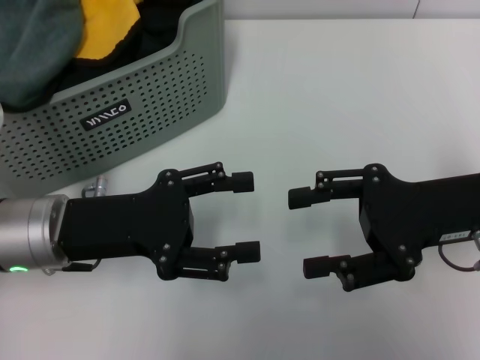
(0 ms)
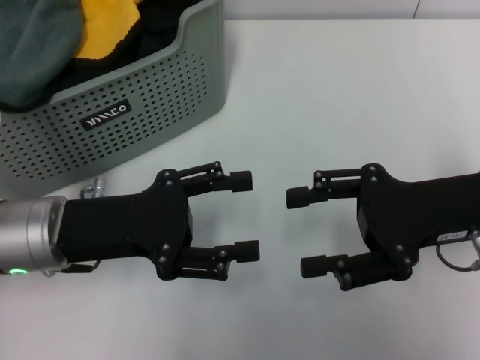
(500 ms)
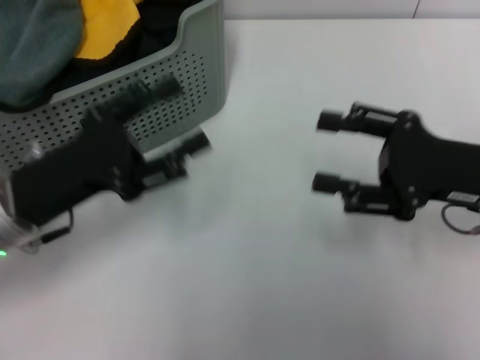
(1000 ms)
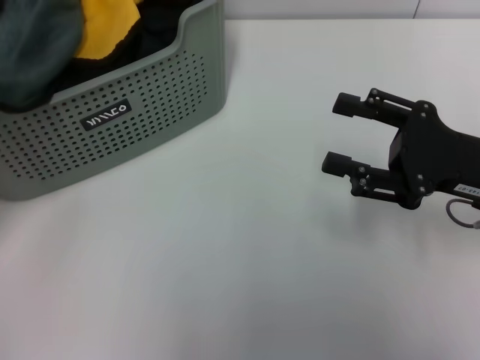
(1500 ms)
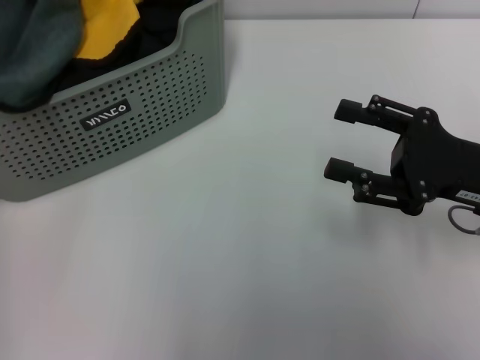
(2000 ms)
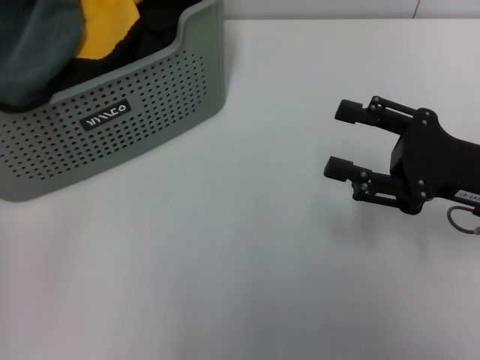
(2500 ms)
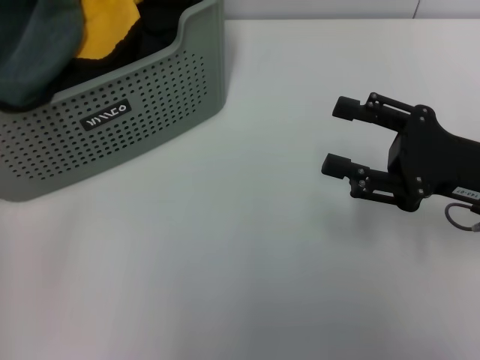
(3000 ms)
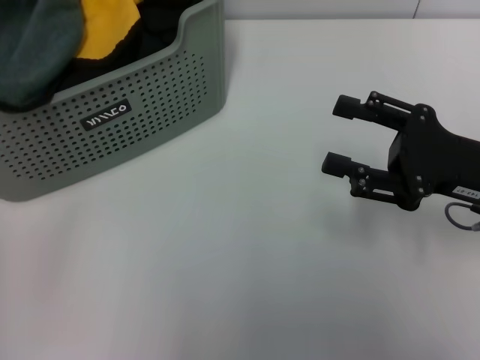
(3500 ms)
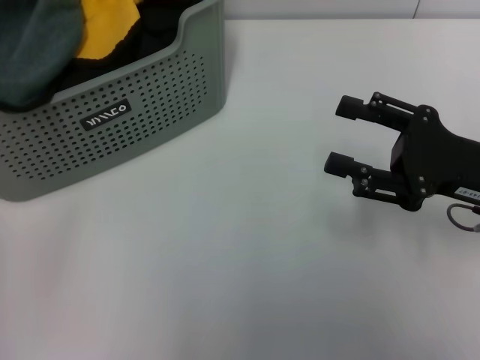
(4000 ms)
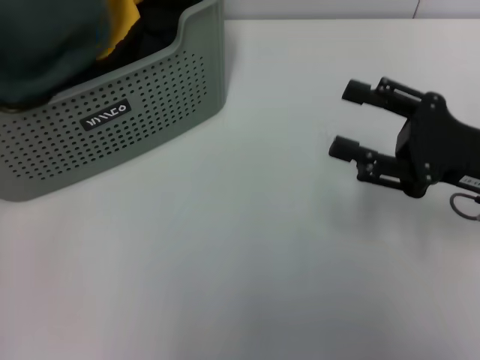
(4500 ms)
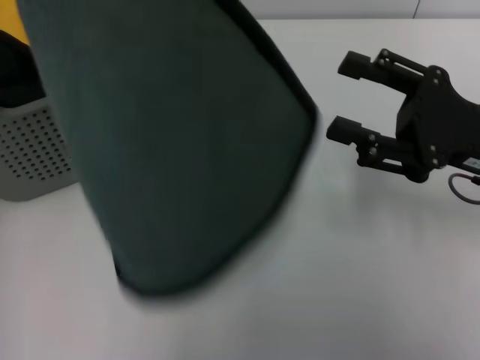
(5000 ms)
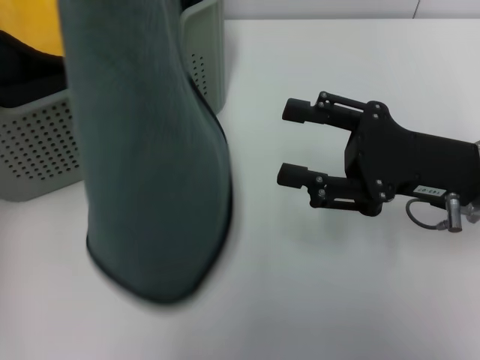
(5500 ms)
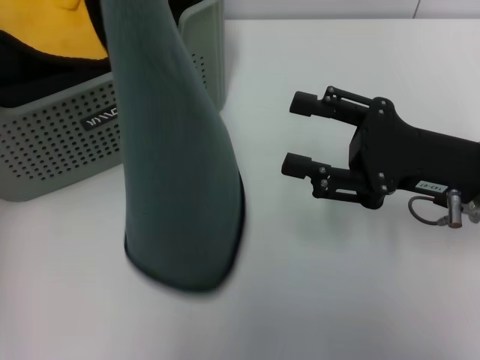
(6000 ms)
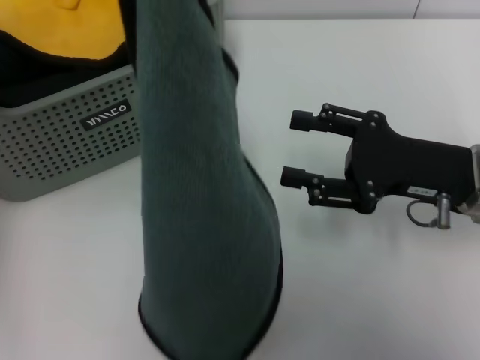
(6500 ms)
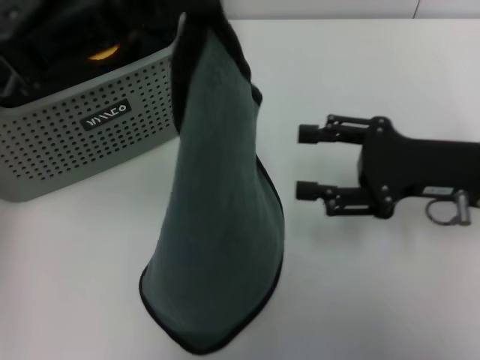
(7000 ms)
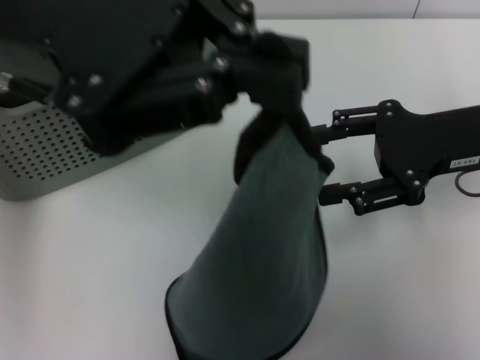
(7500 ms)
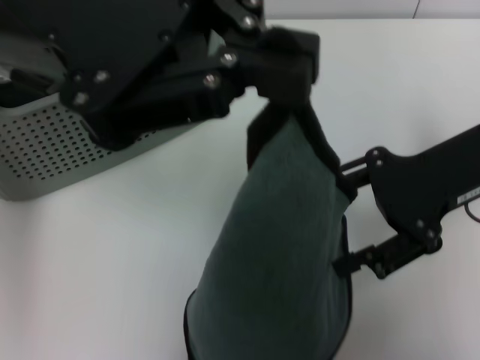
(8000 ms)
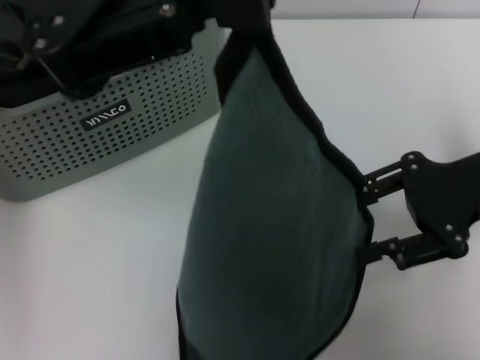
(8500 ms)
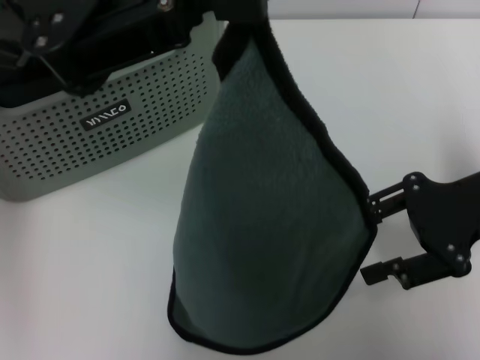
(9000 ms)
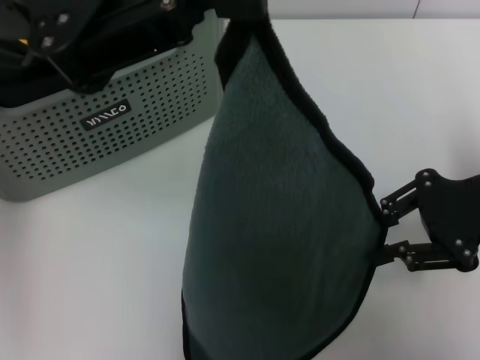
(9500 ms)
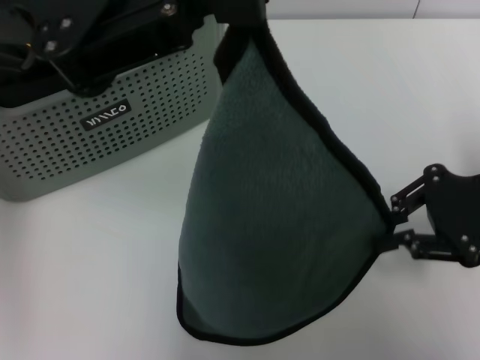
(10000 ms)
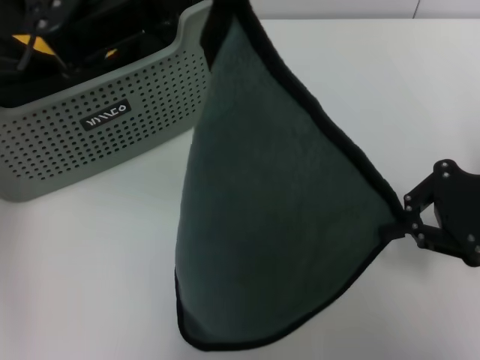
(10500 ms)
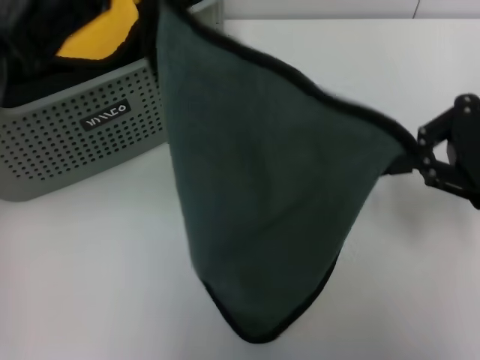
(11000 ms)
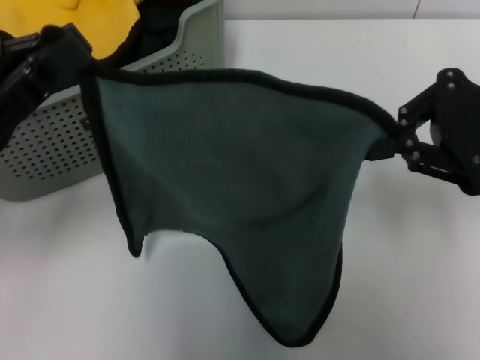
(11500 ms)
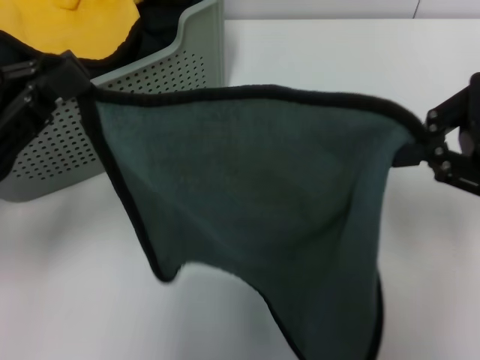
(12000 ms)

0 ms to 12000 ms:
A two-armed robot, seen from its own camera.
Task of the whole recording: pick up the towel from the storage box and lay it flat on the table.
Step, 0 ms to 3500 ms: Pick up a towel with the left gripper.
Step, 4000 ms to 10000 ms: Spread the towel flat with the left gripper.
0 ms to 2000 ms: The left gripper shifts some 15 cm forward, upward and to the left.
4000 ms to 6000 ms: The left gripper is displaced upward, to the right and backward by some 15 cm.
6000 ms to 8000 ms: The right gripper heads upward, covering about 5 cm. The left gripper shifts about 5 cm to the right.
8000 ms to 10000 ms: The right gripper shifts some 5 cm to the right, and closes.
10000 ms to 12000 ms: The left gripper heads downward, to the left and backward, covering approximately 15 cm. The right gripper heads upward, covering approximately 5 cm, and closes its fingers.

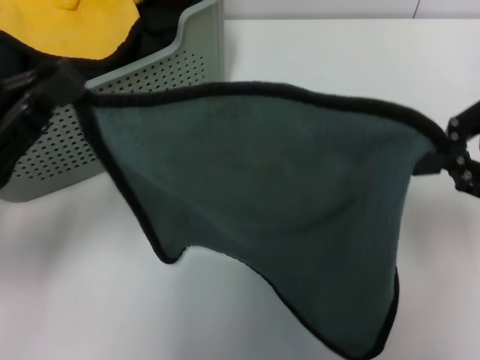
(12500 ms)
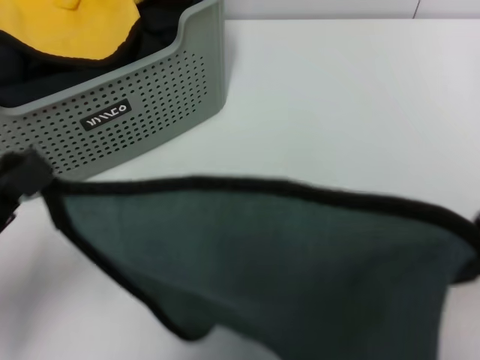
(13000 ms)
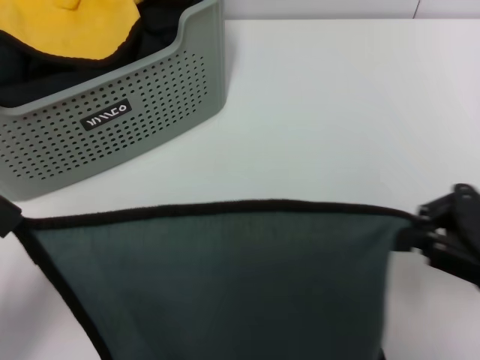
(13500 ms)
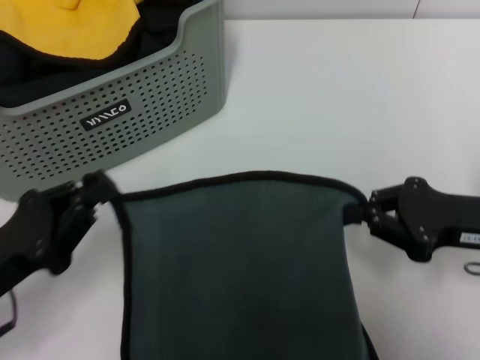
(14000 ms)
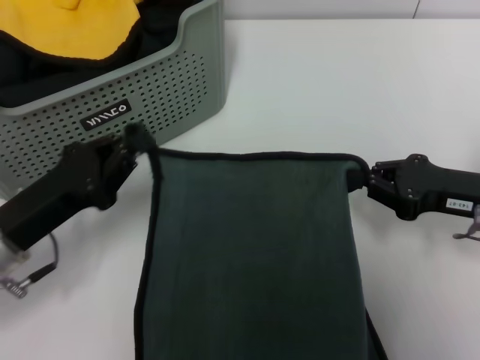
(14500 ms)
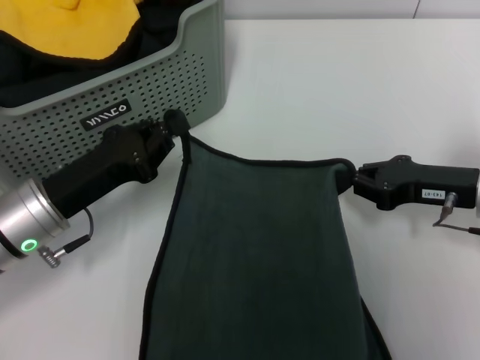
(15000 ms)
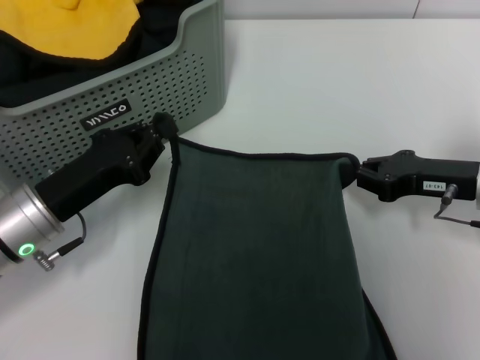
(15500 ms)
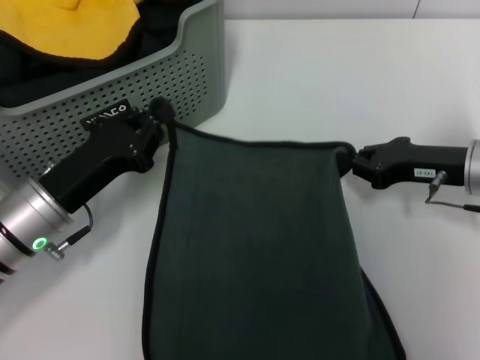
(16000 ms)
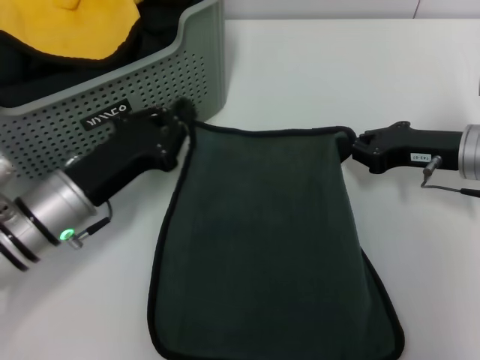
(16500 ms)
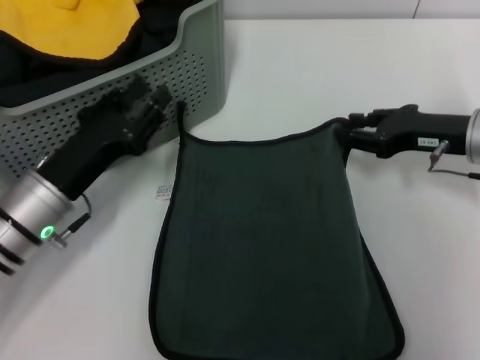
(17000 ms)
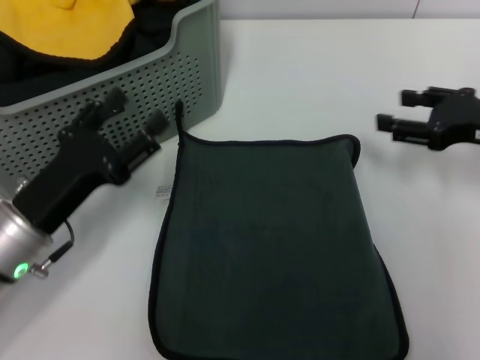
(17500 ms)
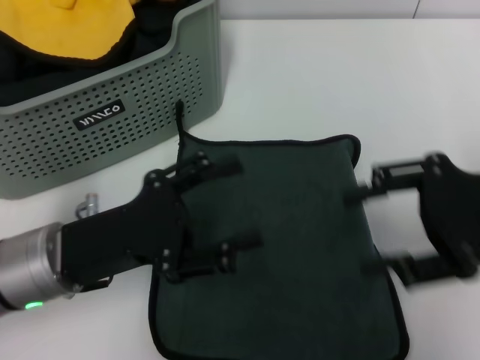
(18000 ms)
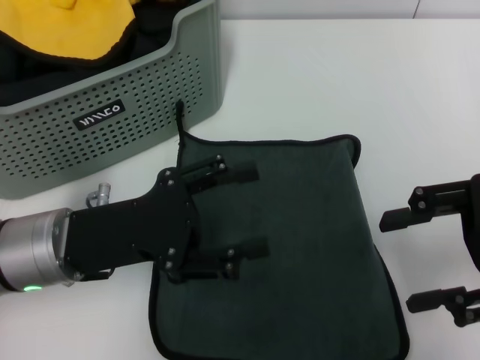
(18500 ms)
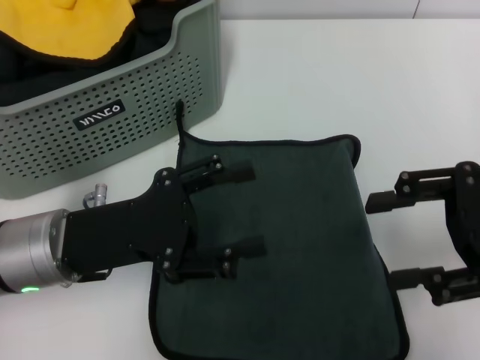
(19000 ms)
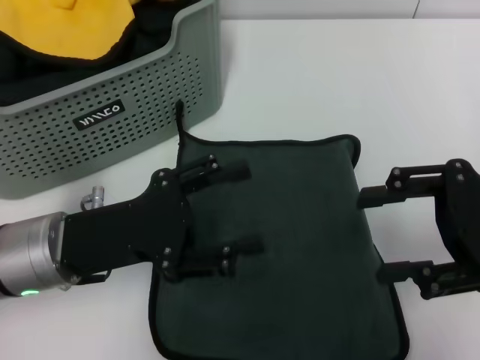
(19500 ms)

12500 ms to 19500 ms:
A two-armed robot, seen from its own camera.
Task of the whole recording: pick up the towel from the storage box and lay it flat on the table.
Step, 12500 ms to 17000 ms: Spread the towel flat with the right gripper.
12500 ms to 14500 ms: The left gripper shifts some 10 cm downward, and travels backward and back again, about 10 cm each way. The right gripper moves downward, roughly 15 cm.
14500 ms to 16000 ms: The grippers stay close to where they were, moving slightly.
16000 ms to 17500 ms: The left gripper opens. The right gripper heads upward, covering approximately 5 cm, and opens.
17500 ms to 19500 ms: The left gripper ends up roughly 5 cm from where it was; the right gripper heads backward, covering roughly 5 cm.

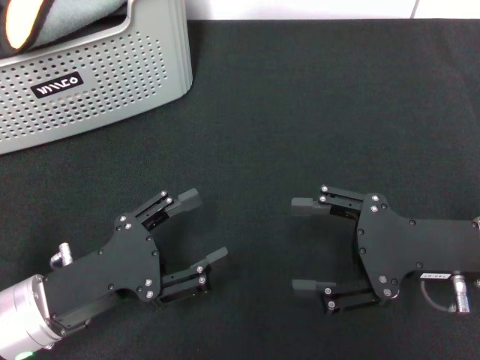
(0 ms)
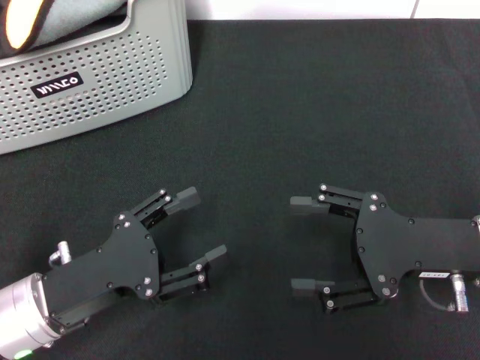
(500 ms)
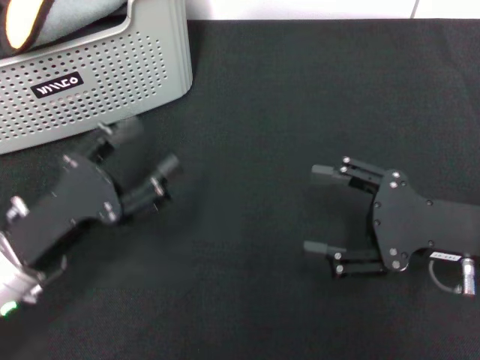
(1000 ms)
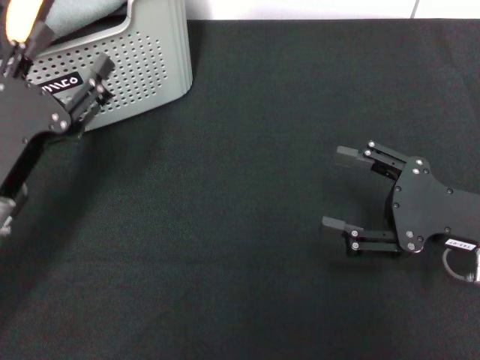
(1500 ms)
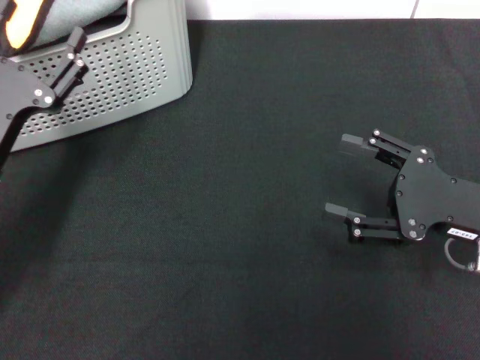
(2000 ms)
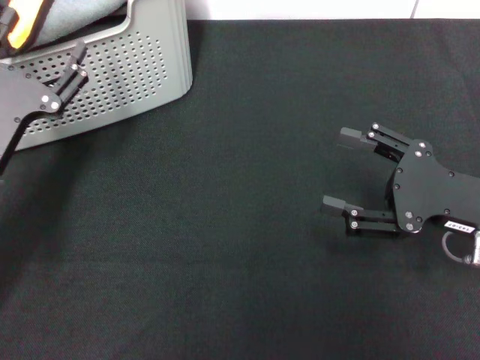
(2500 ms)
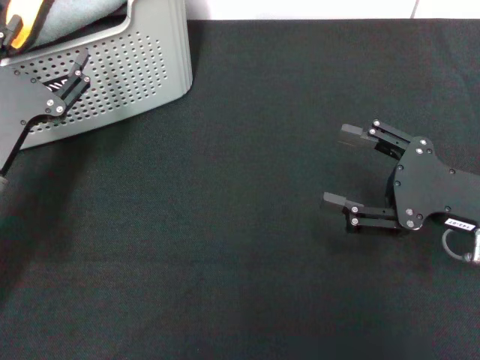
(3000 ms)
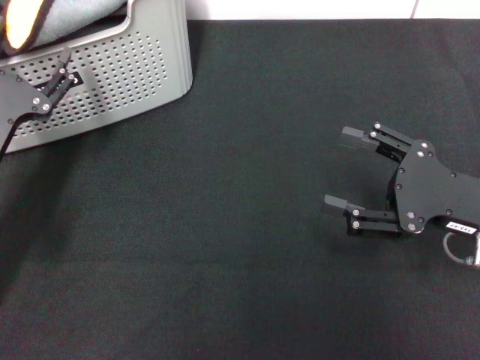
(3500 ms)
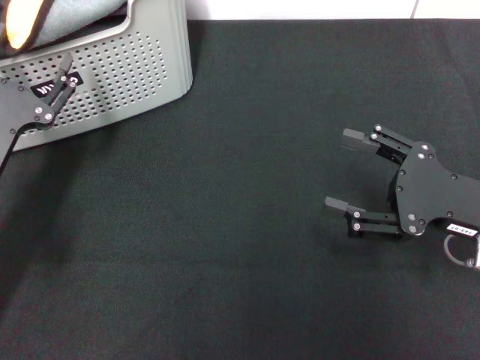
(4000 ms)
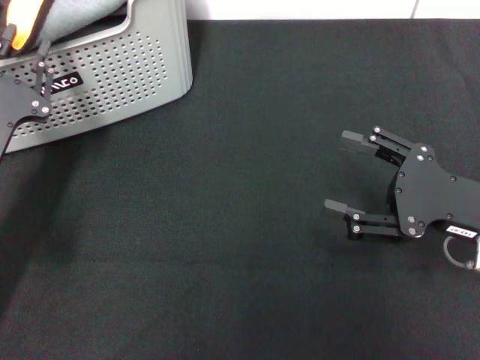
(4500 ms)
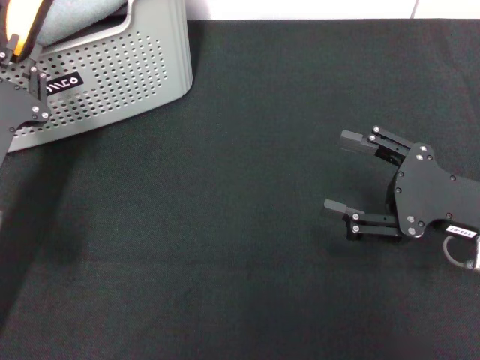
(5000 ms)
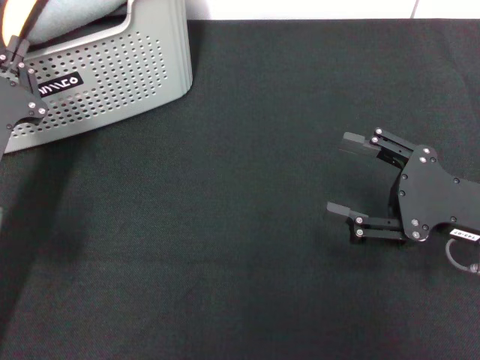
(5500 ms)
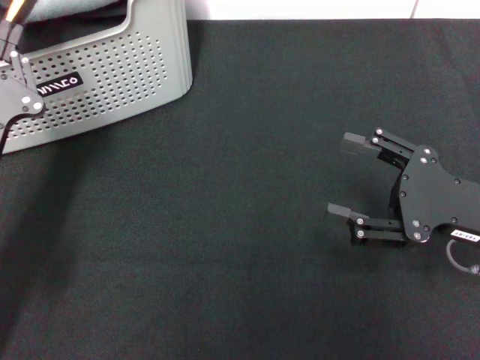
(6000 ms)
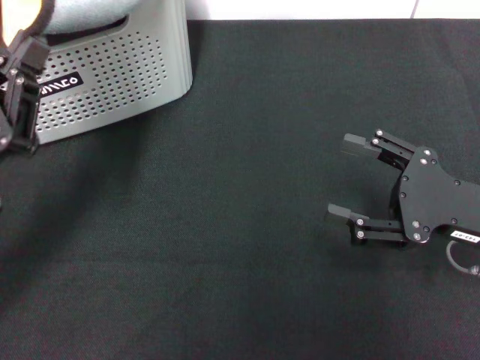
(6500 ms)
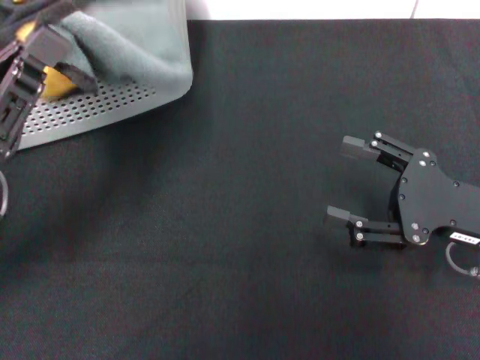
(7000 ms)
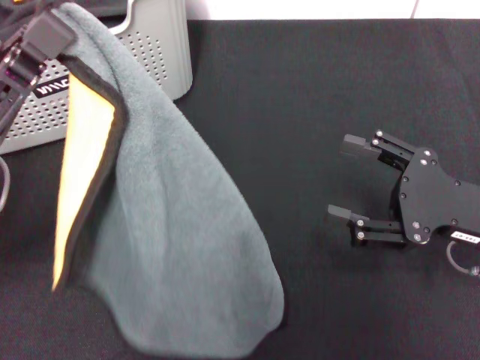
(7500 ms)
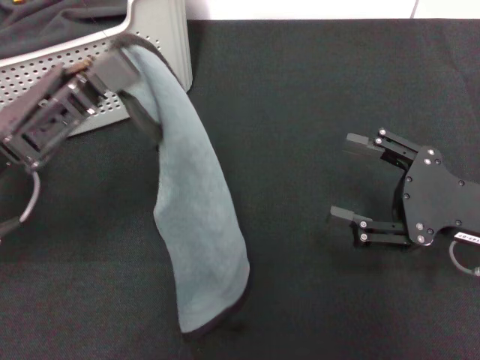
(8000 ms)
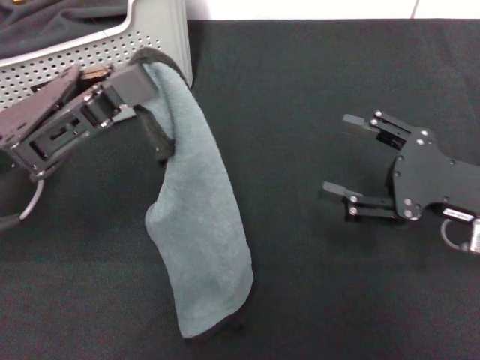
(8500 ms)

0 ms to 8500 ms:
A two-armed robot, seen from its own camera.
Task of the whole recording: pick up the towel from the storage box and lay it flat on the black tablecloth.
Step, 0 ms to 5500 ms: Pick up a towel with the left gripper.
0 ms to 2000 ms: The left gripper goes approximately 5 cm forward.
2000 ms to 4000 ms: There are only small adjustments of the grippers.
4000 ms to 6500 ms: The left gripper changes place by roughly 5 cm, and closes up.
6500 ms to 8500 ms: The left gripper travels upward by roughly 5 cm.
